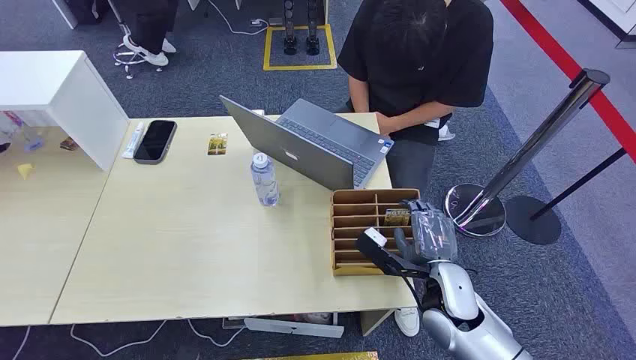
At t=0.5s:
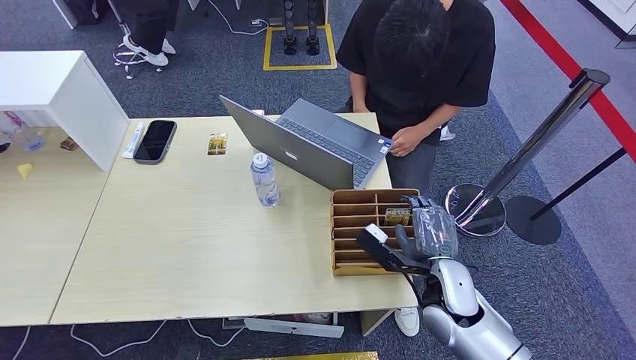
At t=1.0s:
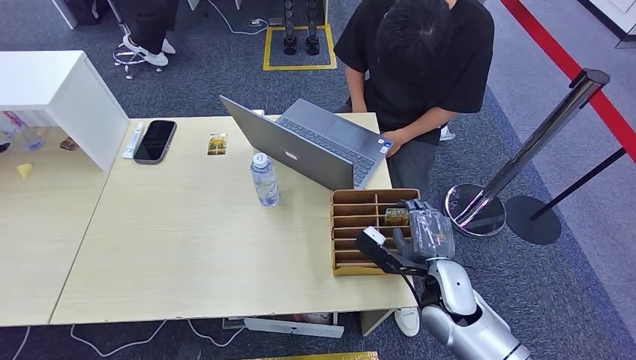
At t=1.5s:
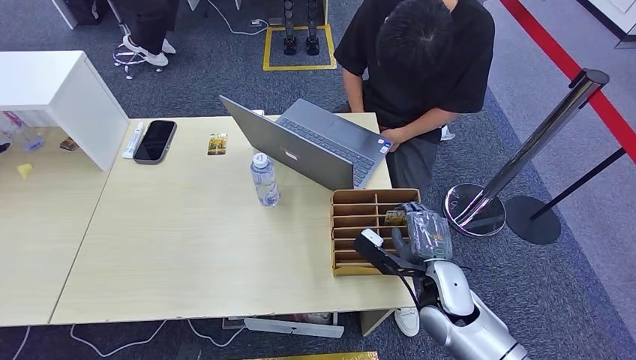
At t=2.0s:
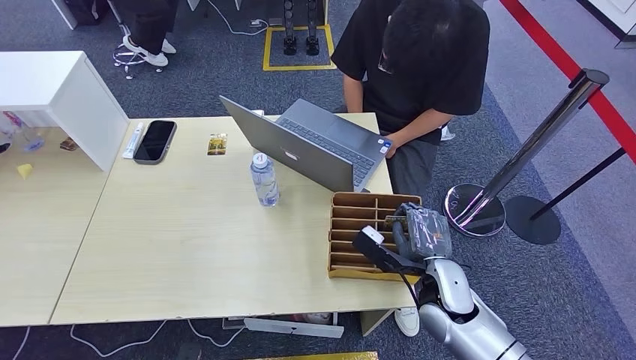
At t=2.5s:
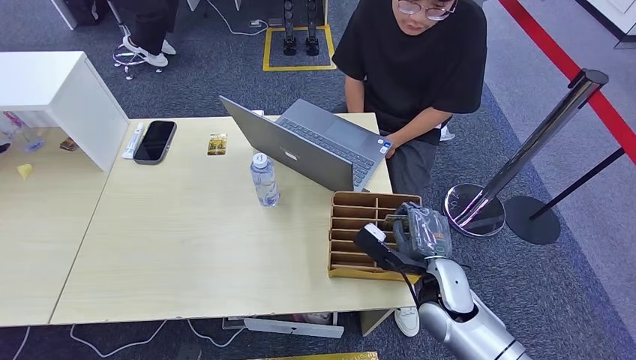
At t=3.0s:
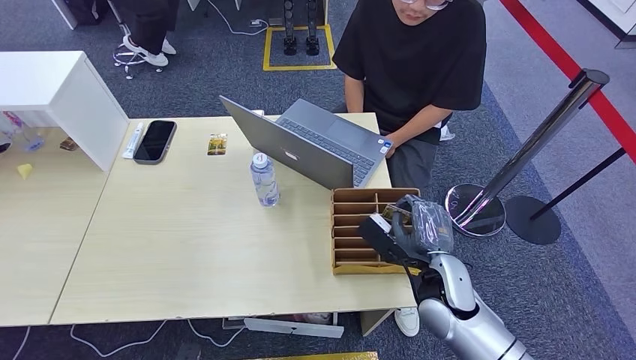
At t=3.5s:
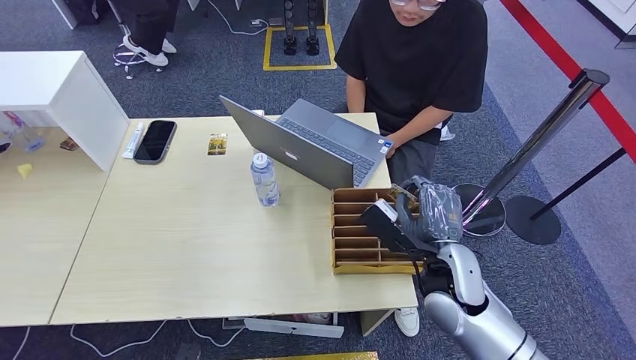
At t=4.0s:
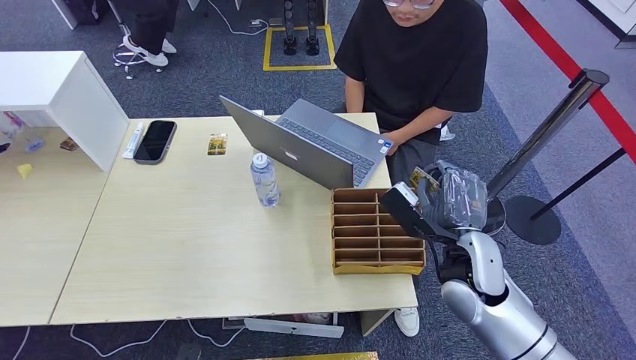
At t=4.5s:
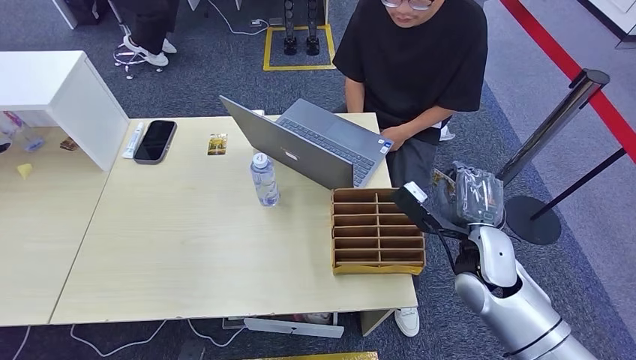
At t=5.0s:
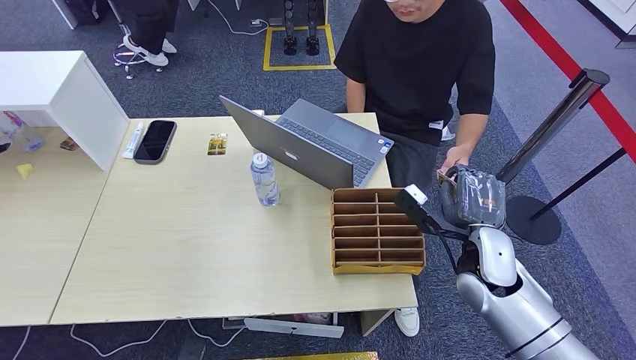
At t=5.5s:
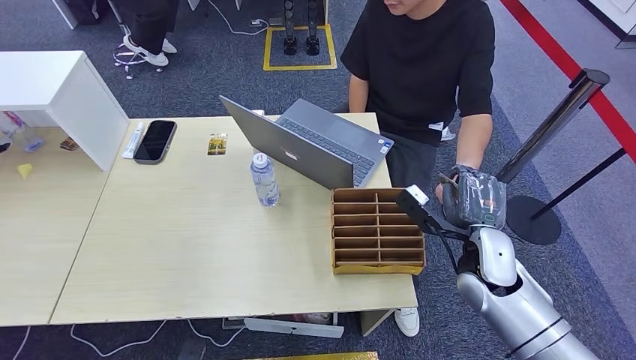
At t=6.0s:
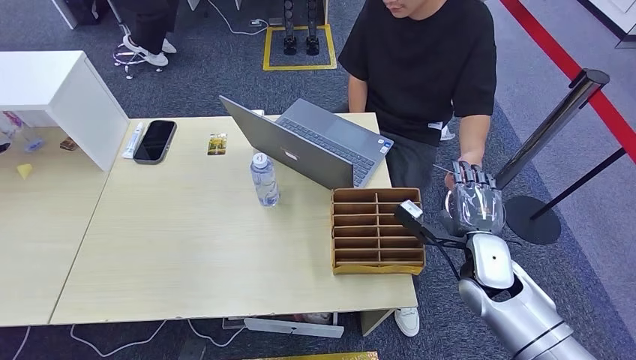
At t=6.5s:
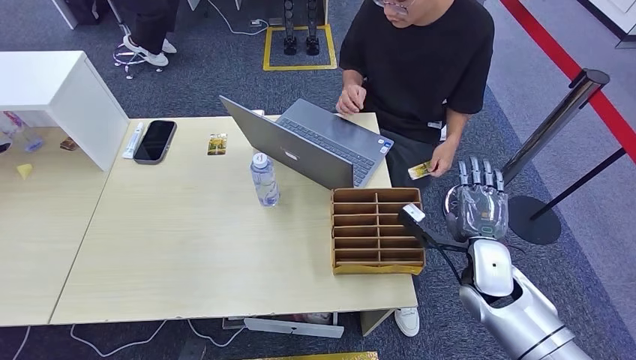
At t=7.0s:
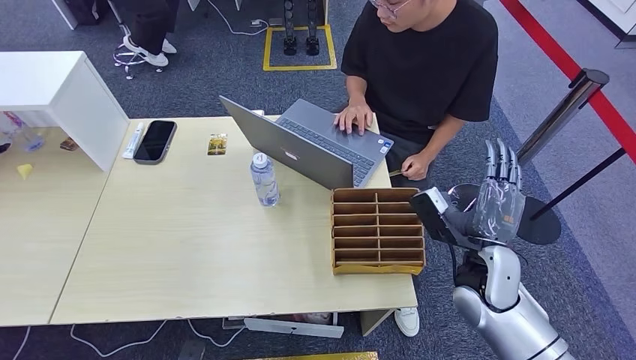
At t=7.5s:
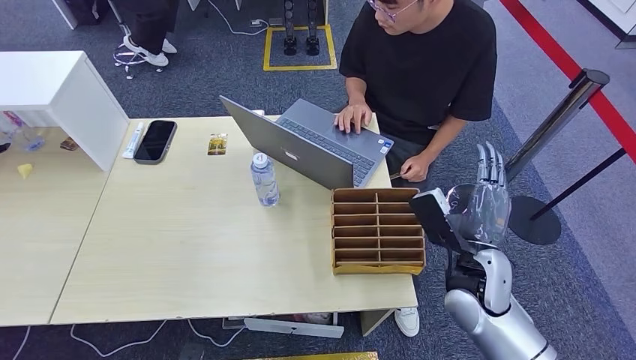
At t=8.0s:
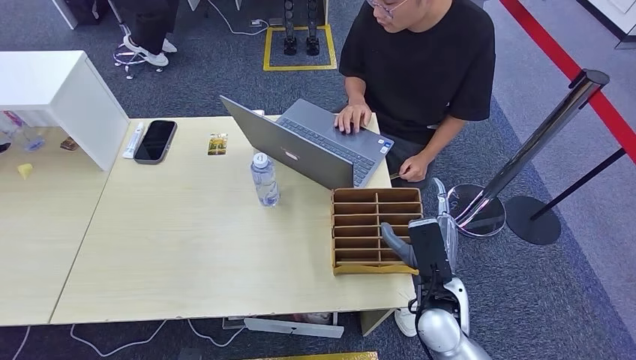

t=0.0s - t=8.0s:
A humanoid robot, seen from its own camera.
Step, t=0.0s - t=4.5s: Pick up the key card from the card box.
Step, t=5.0s - t=8.0s: Hand the key card to the target.
t=2.0s - t=4.0s: The right hand heads upward, covering some 10 cm.
t=4.0s - t=6.0s: The right hand heads to the right, covering about 5 cm.
t=6.0s - t=8.0s: The right hand goes roughly 10 cm to the left and backward.
